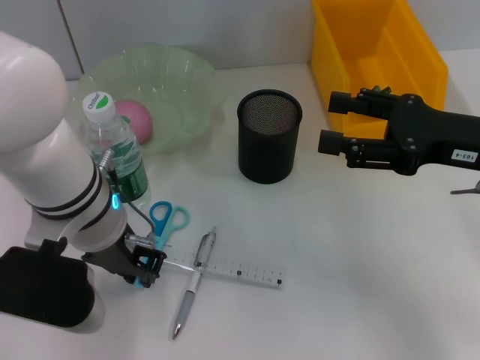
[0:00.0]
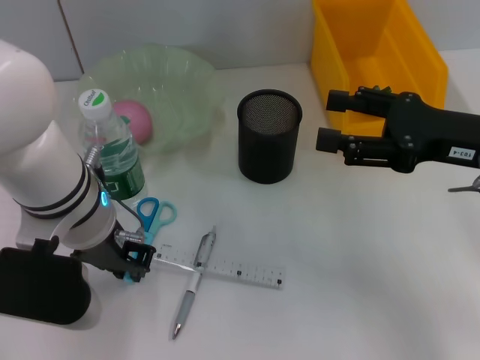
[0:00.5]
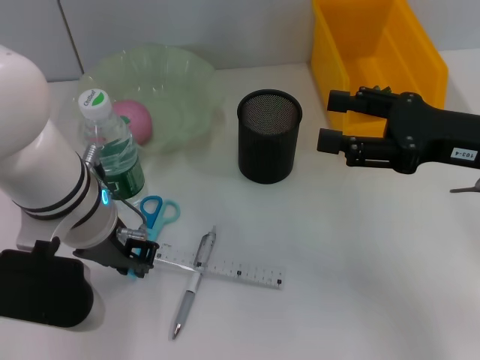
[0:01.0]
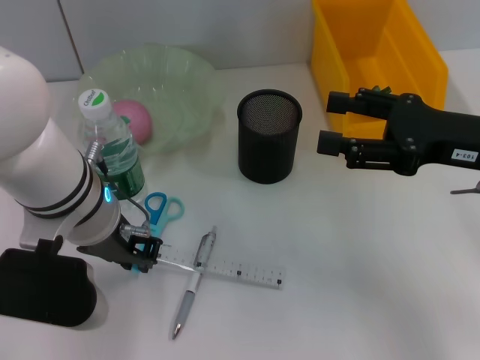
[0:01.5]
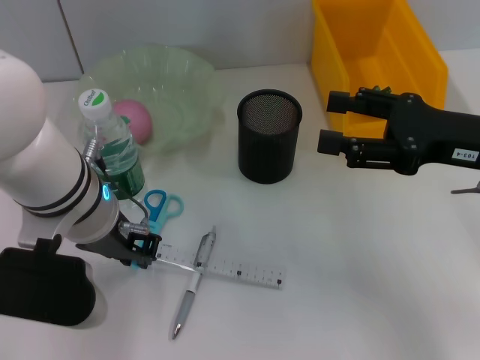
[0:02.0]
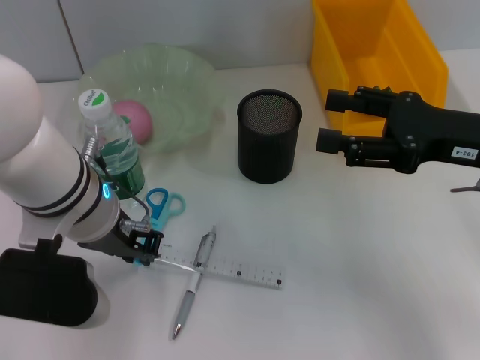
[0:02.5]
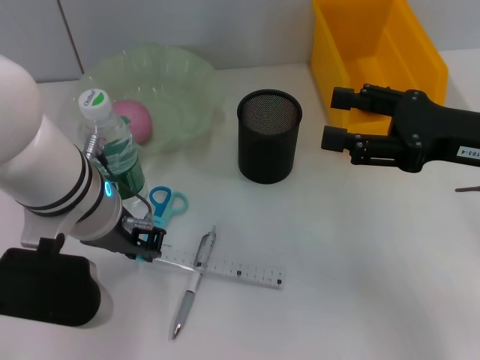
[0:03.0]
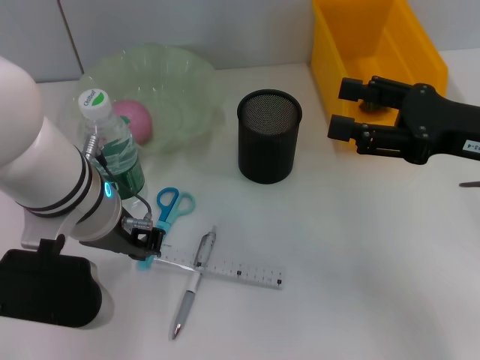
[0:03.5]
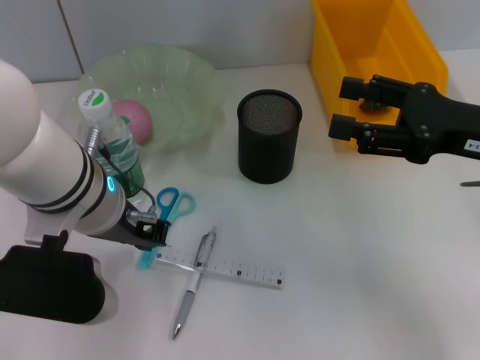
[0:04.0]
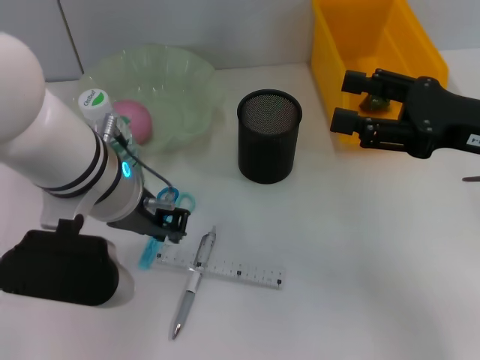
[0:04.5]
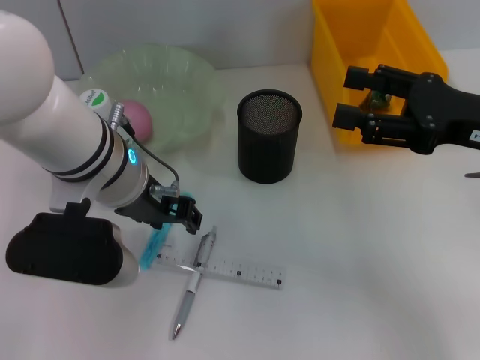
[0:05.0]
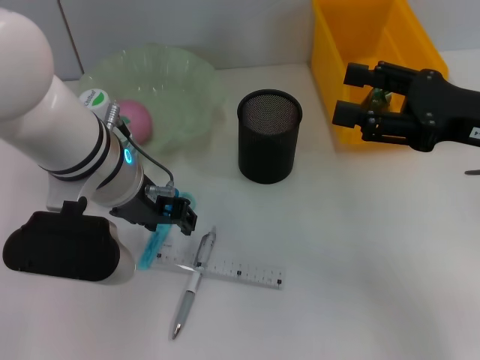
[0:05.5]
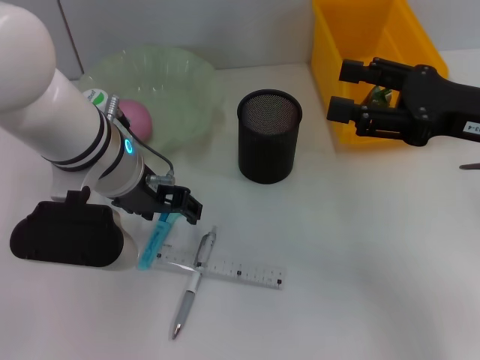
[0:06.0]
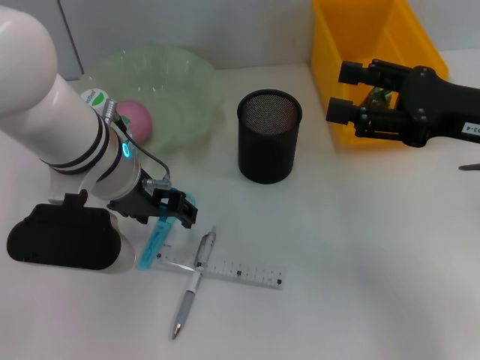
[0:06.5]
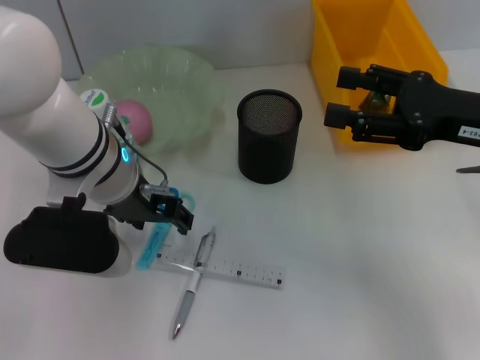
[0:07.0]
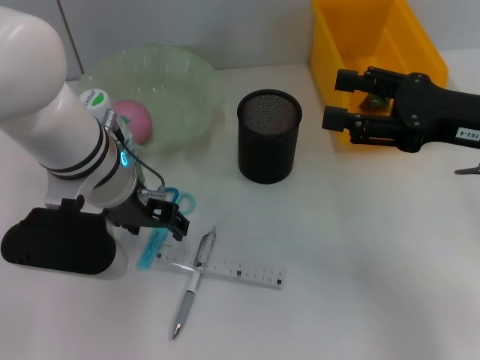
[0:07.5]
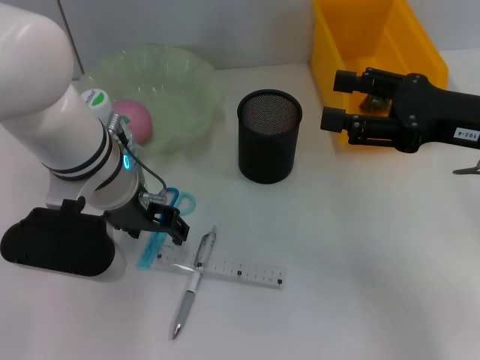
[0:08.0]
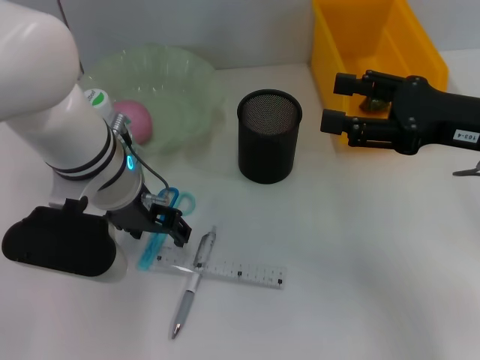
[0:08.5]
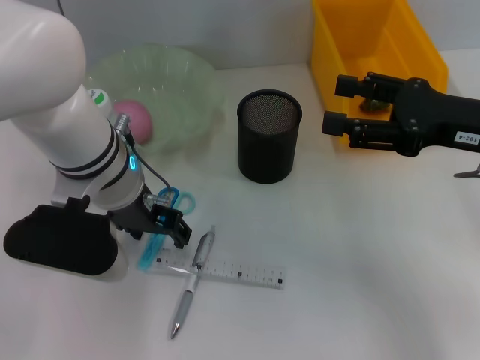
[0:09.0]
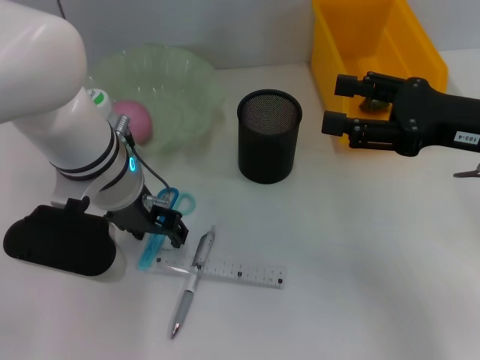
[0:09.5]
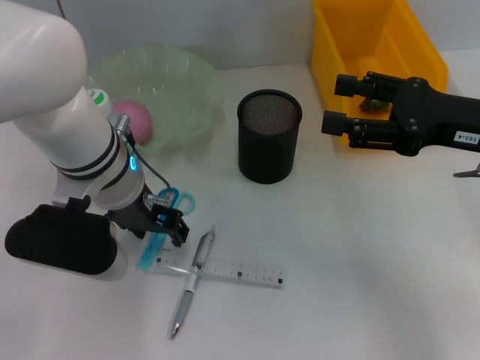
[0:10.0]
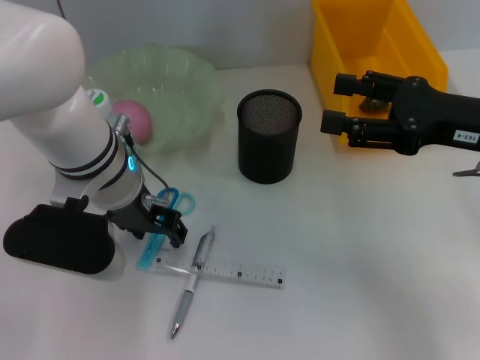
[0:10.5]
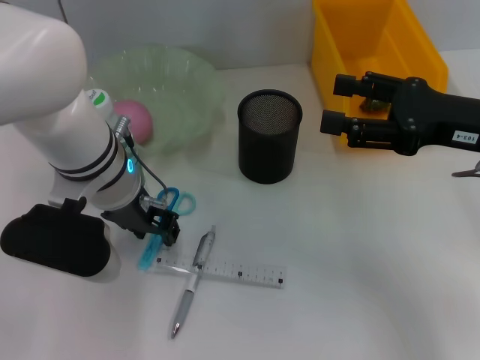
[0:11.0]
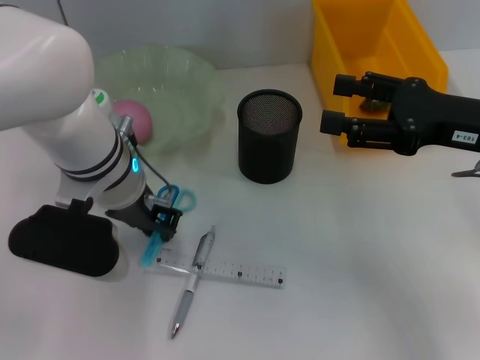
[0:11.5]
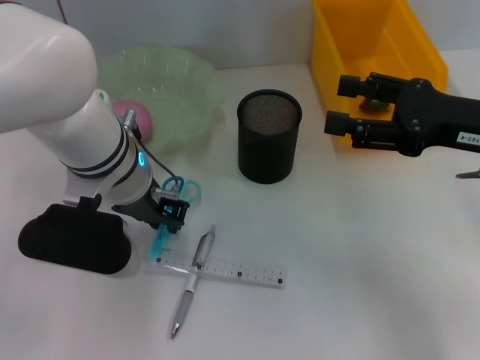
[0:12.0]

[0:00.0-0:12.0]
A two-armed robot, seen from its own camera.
Step, 0:00.0 to 0:11.0: Grab the blue scissors with the left hand.
0:00.0 to 0:02.0: The grippers move only a little.
0:02.0 to 0:04.0: Neither gripper changes place.
0:04.0 to 0:06.0: The left gripper opens.
0:06.0 to 0:08.0: There are only small adjustments of the grippers.
0:08.0 to 0:10.0: The two grippers keep their place.
0:10.0 to 0:12.0: The left gripper closes its fingers.

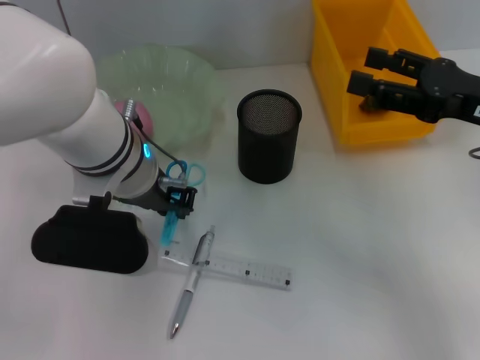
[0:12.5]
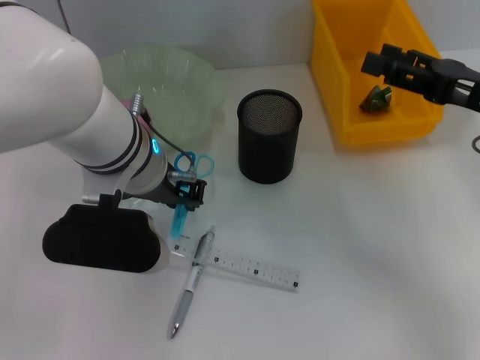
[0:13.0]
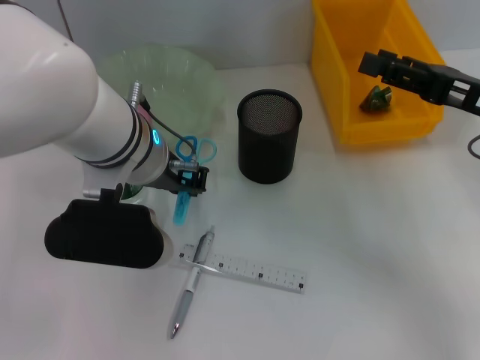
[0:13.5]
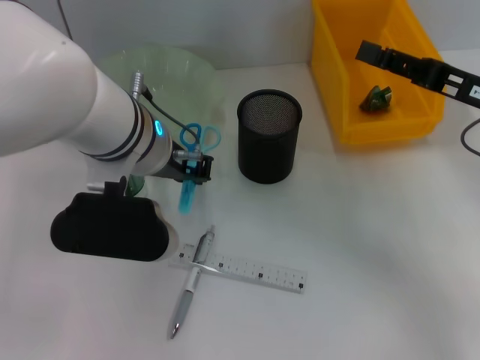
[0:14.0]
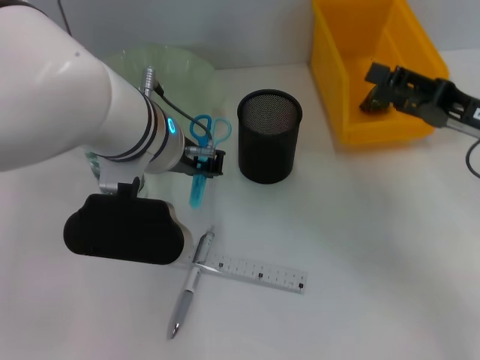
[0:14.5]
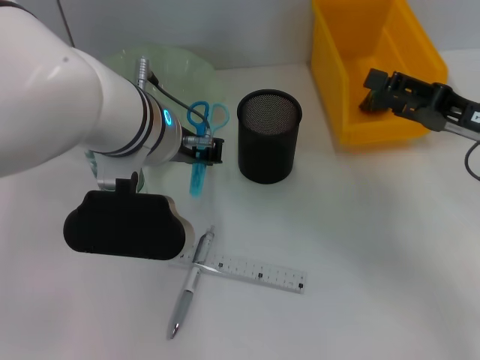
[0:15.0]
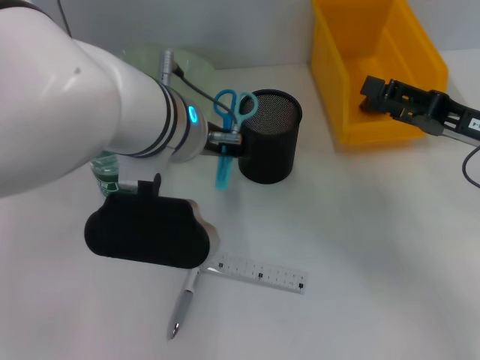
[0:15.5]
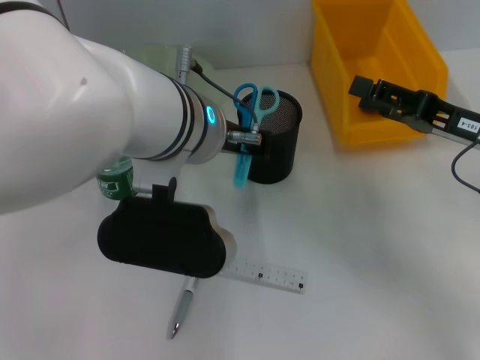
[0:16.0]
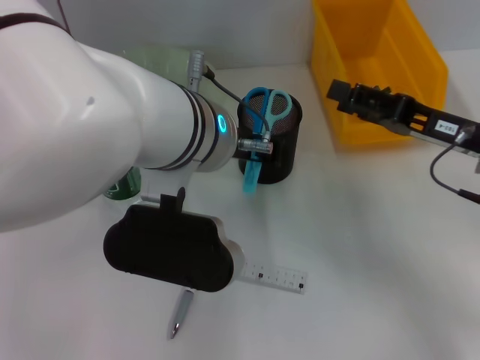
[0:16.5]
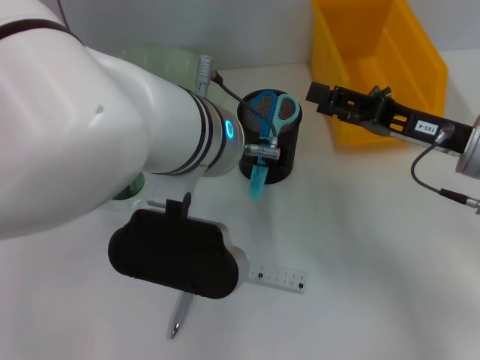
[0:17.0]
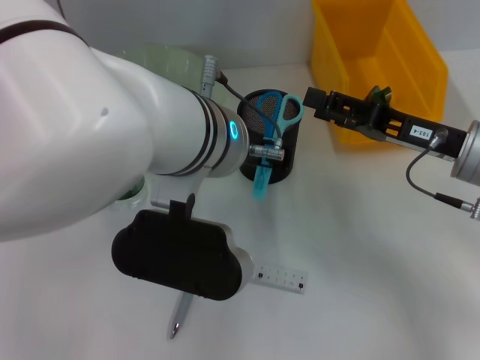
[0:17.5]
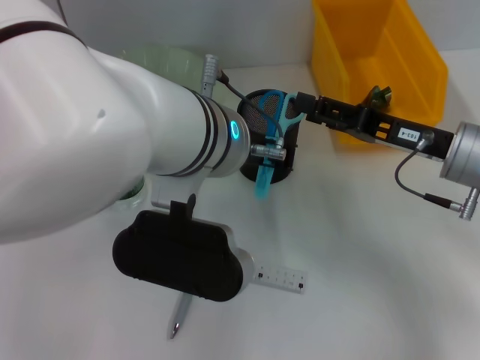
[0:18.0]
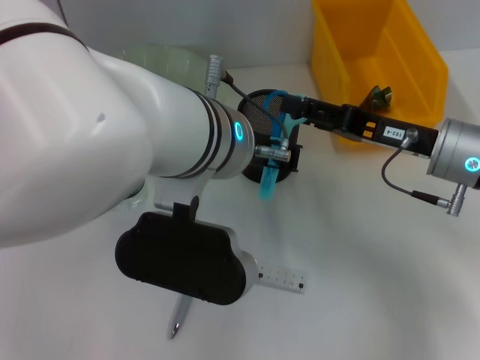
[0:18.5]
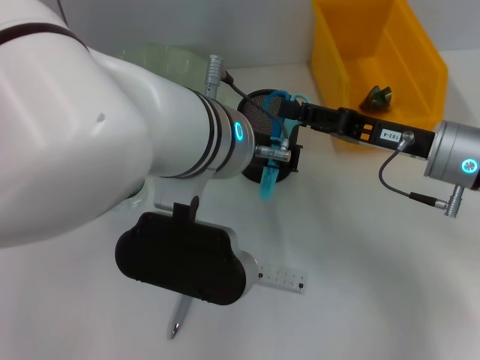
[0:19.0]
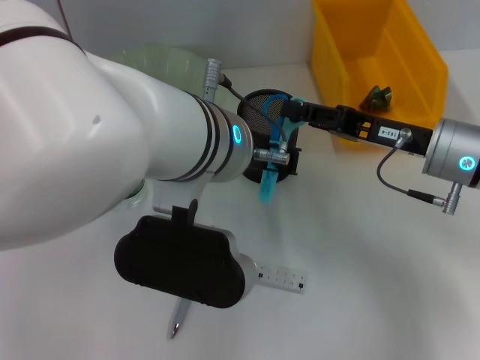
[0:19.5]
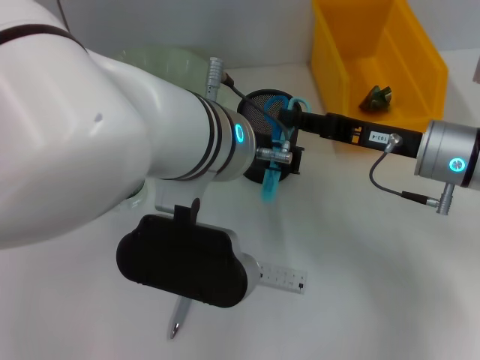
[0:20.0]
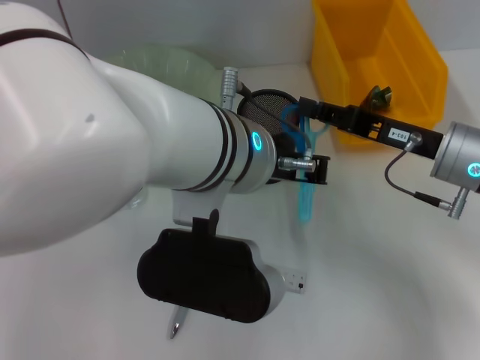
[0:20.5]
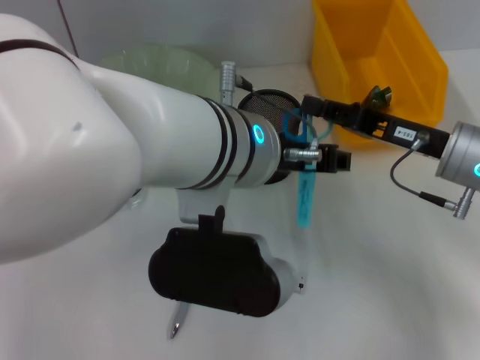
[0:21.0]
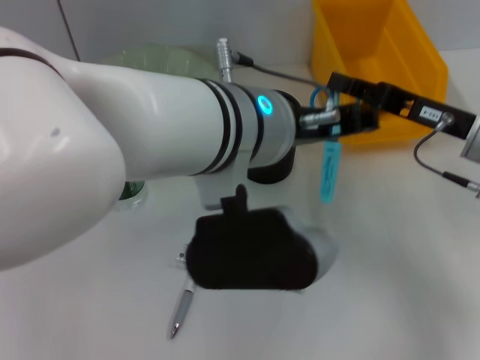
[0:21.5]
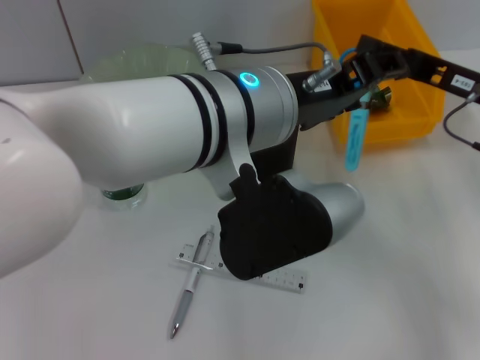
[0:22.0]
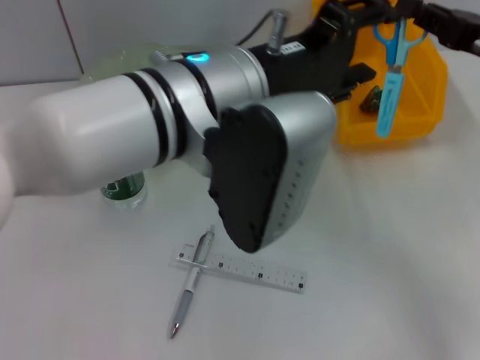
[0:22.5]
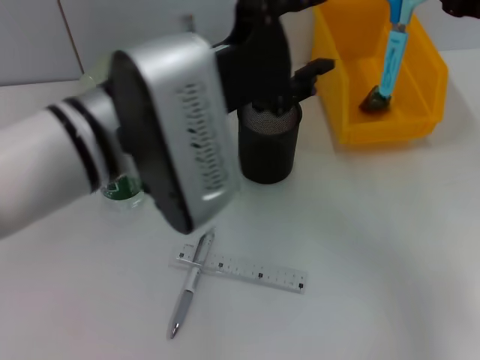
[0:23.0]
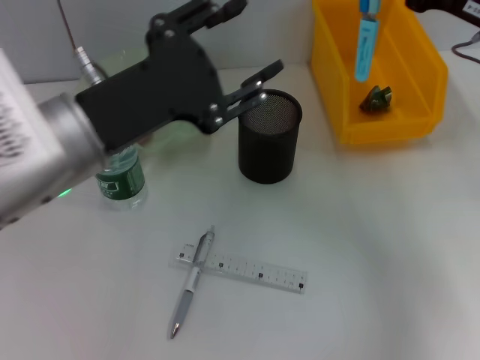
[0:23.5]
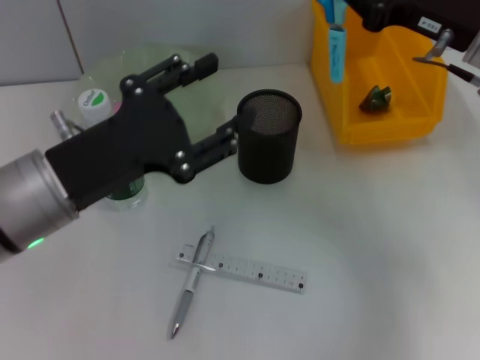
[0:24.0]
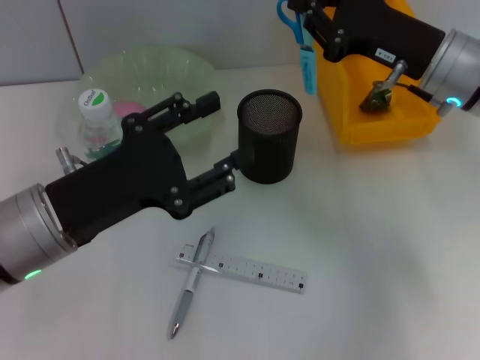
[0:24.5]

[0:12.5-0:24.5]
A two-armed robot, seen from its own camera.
Step, 0:12.5 to 0:20.0: Pass the blue scissors from the left hand to the right hand.
0:14.5 to 0:16.5: The left gripper moves roughly 5 cm.
0:16.5 to 0:18.5: The grippers stay close to where they were, moving slightly.
0:18.5 to 0:20.5: The right gripper closes.
0:20.5 to 0:22.5: The right gripper travels upward and to the right by some 10 cm; the left gripper opens its fingers.
0:22.5 to 0:24.5: The left gripper travels to the left and downward by roughly 15 cm. The right gripper travels to the left by roughly 10 cm.

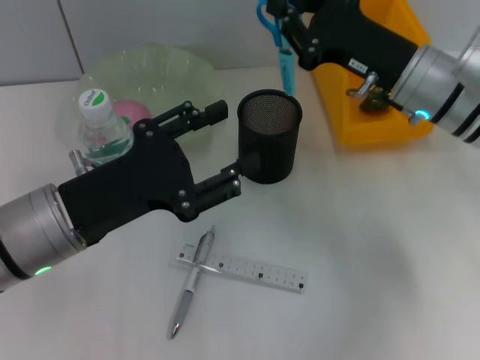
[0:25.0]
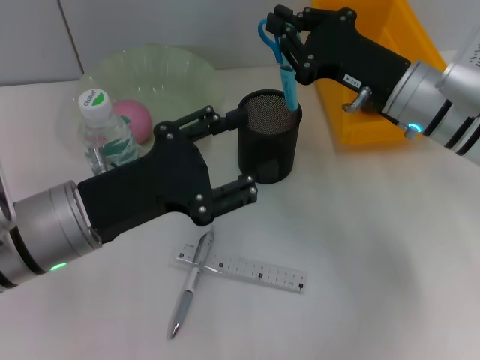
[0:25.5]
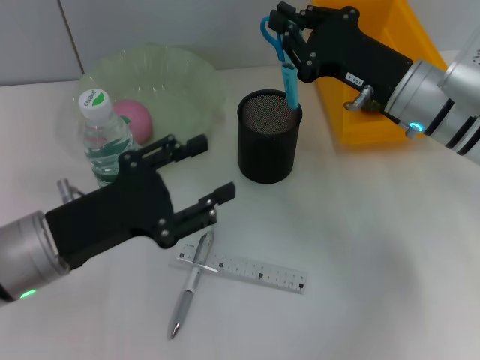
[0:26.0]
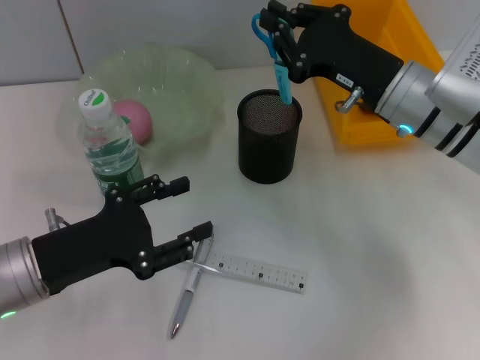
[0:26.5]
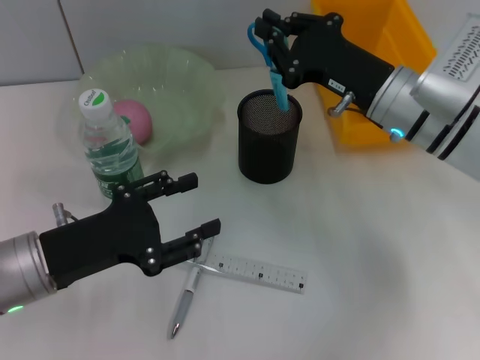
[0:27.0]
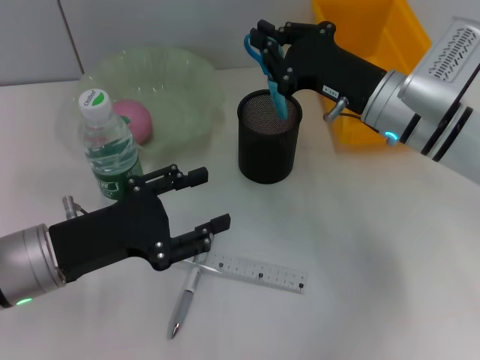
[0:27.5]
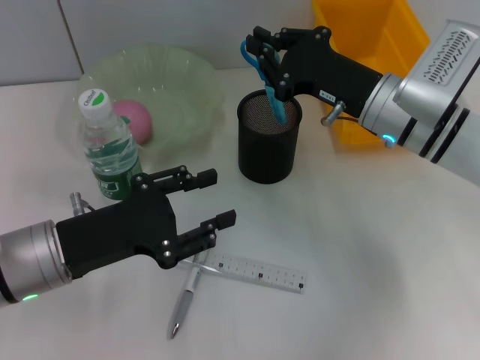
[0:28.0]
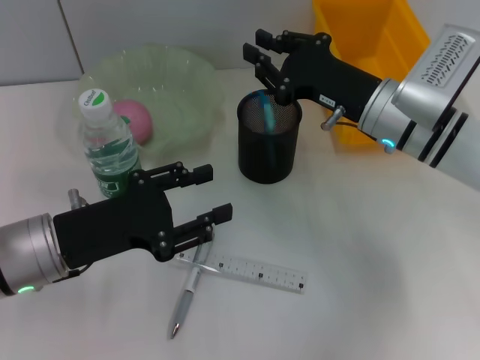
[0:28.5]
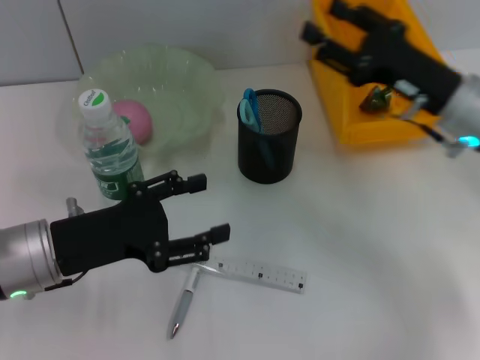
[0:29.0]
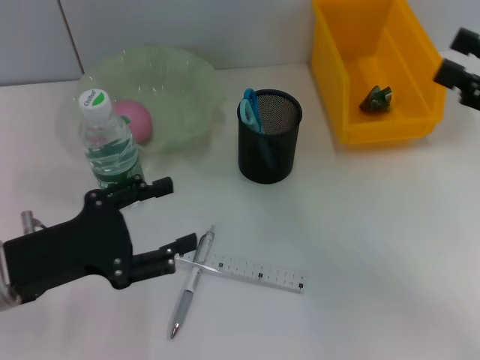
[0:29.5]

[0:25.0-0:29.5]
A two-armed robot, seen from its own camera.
Step, 0:25.0 to 0:28.5: Place the blue scissors into the pen holder with the right hand.
0:25.0 to 0:27.0: The left gripper changes place by about 5 cm.
0:27.0 to 0:29.5: The right gripper shifts about 20 cm to the right and backward, and opens its fingers.
